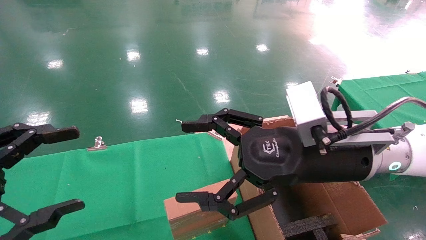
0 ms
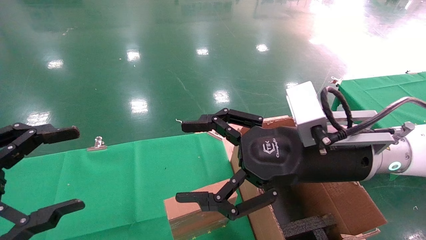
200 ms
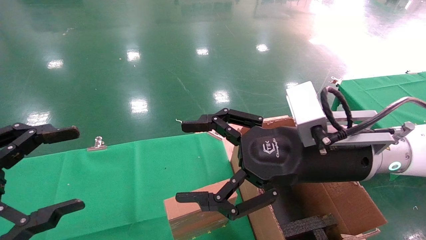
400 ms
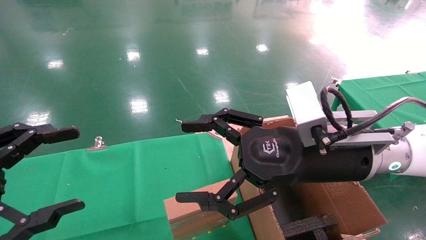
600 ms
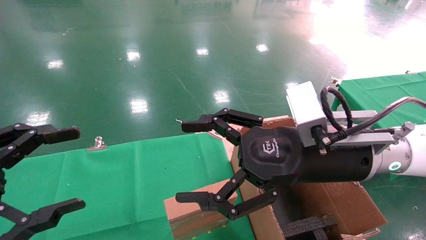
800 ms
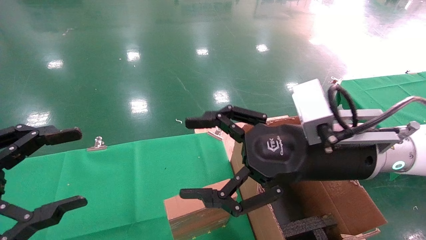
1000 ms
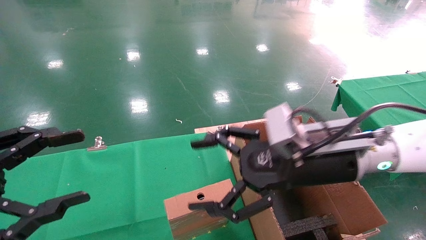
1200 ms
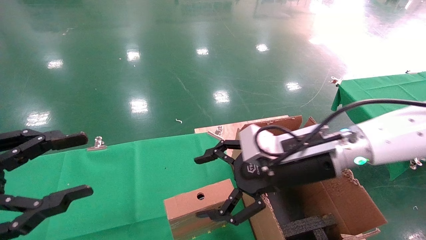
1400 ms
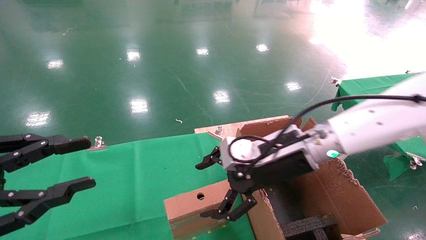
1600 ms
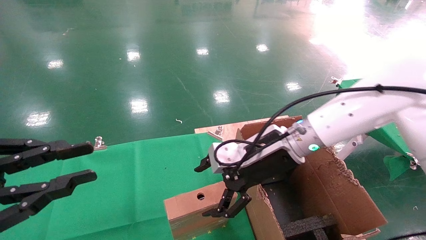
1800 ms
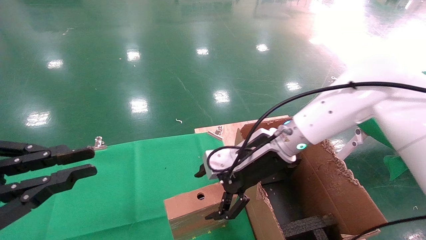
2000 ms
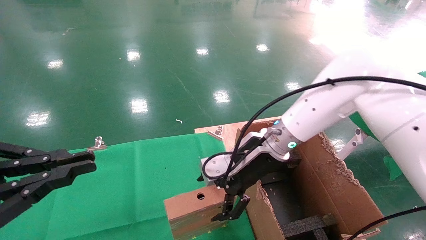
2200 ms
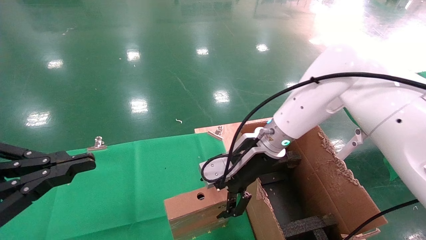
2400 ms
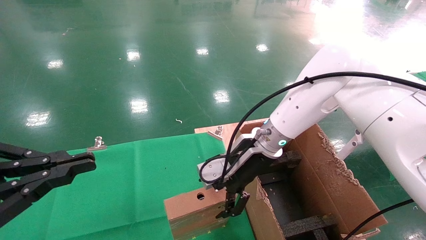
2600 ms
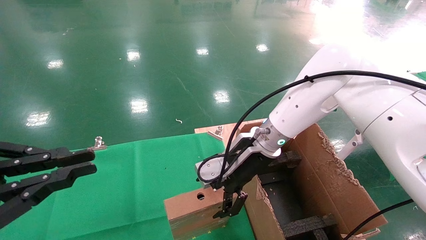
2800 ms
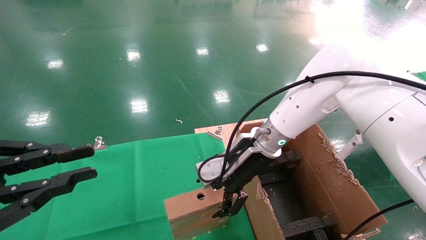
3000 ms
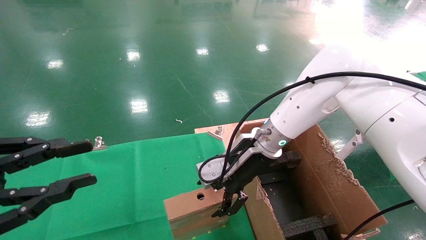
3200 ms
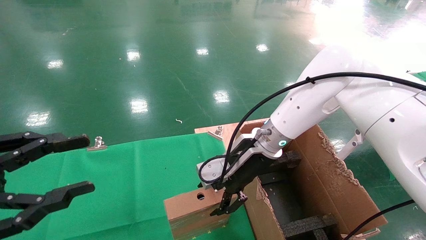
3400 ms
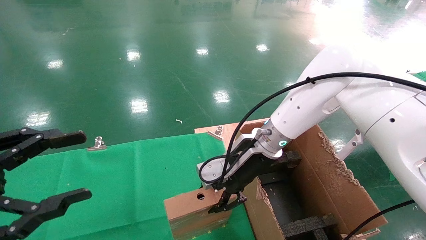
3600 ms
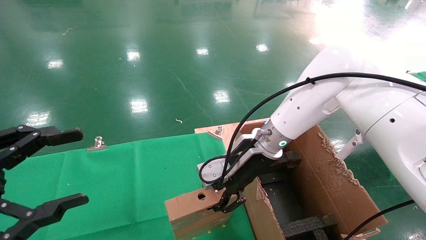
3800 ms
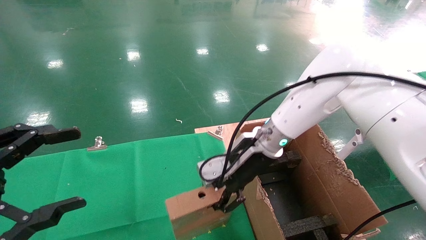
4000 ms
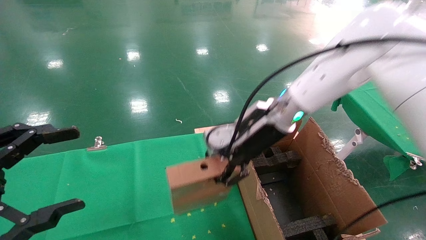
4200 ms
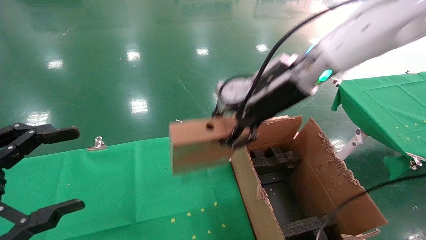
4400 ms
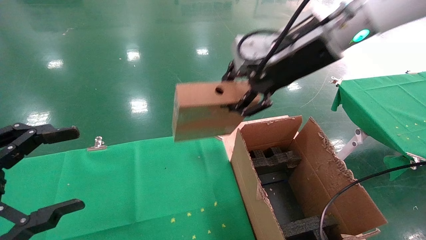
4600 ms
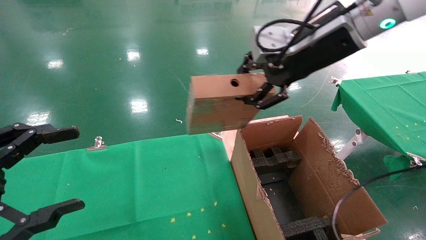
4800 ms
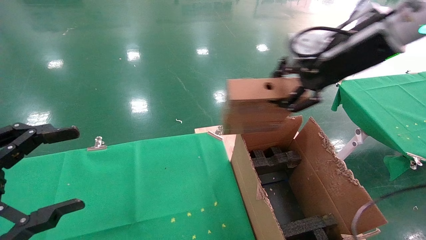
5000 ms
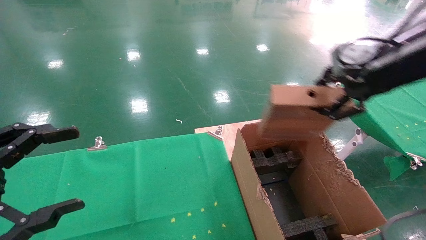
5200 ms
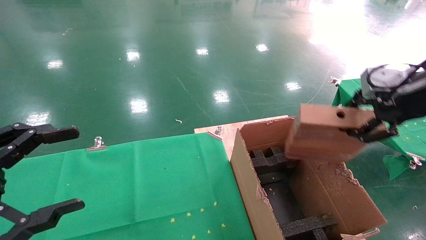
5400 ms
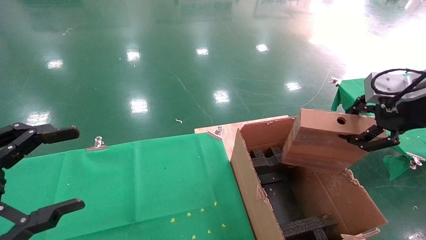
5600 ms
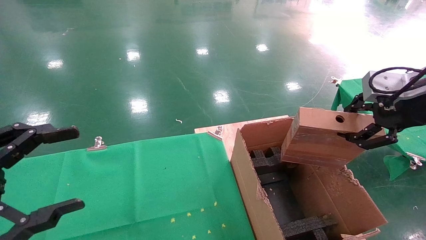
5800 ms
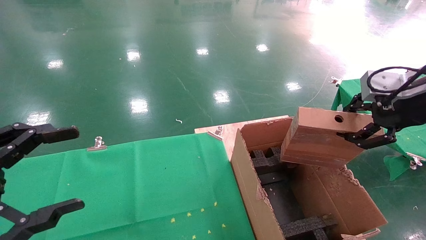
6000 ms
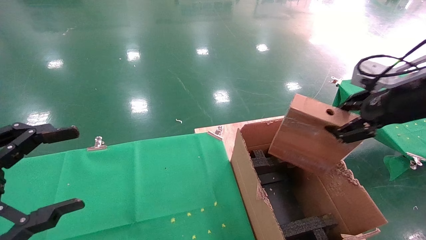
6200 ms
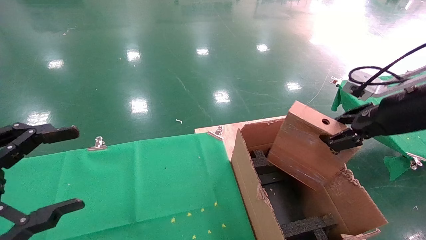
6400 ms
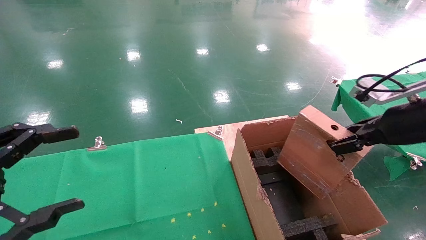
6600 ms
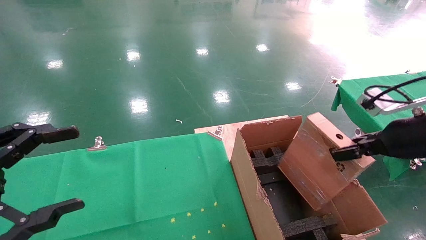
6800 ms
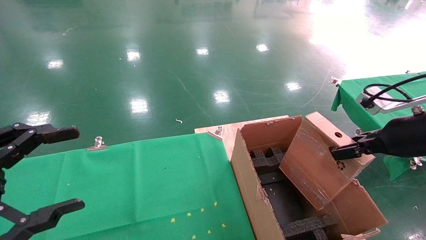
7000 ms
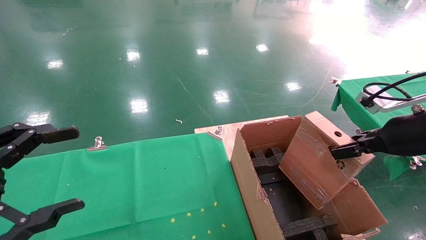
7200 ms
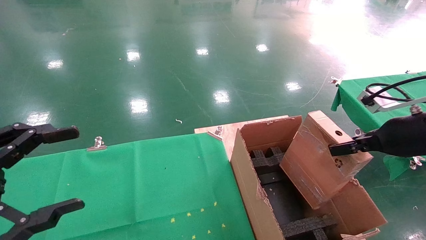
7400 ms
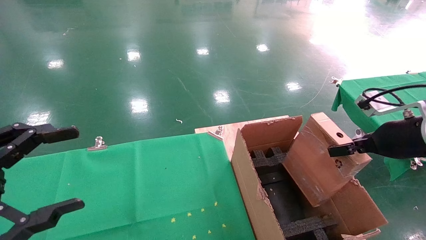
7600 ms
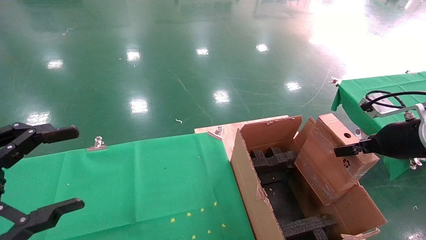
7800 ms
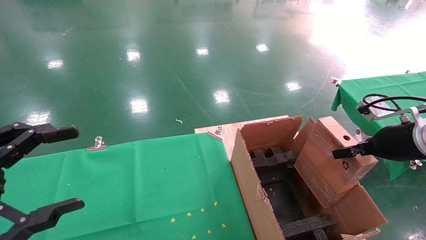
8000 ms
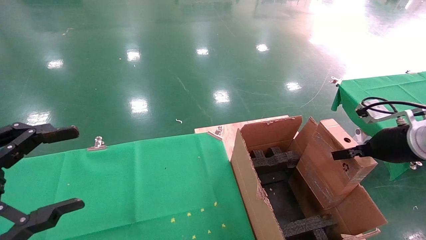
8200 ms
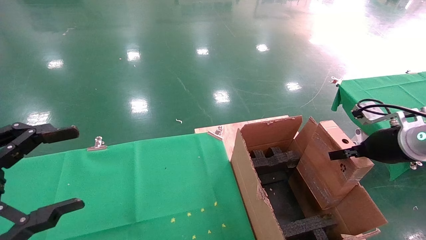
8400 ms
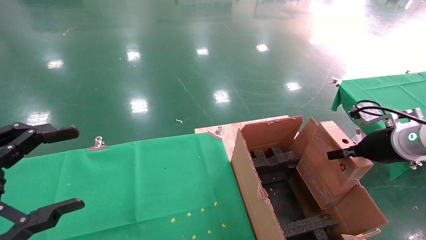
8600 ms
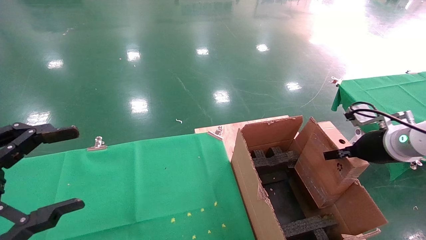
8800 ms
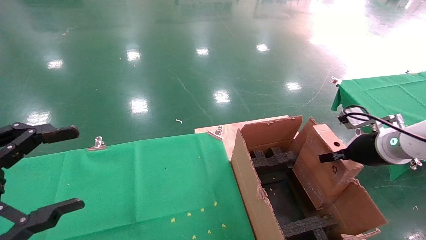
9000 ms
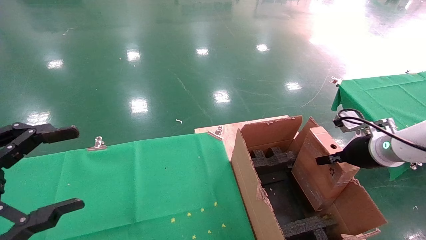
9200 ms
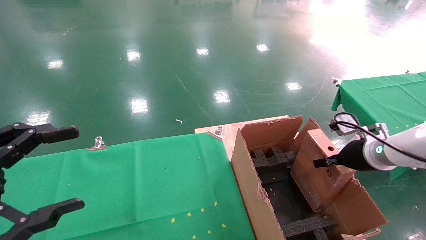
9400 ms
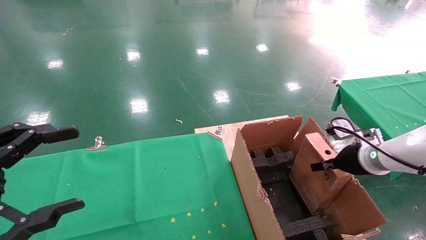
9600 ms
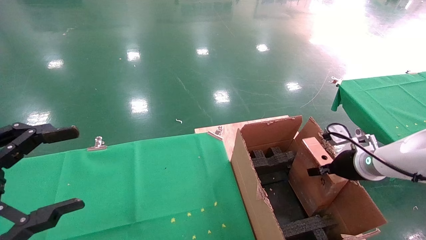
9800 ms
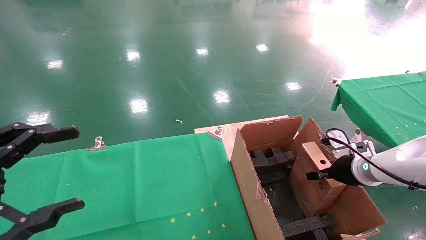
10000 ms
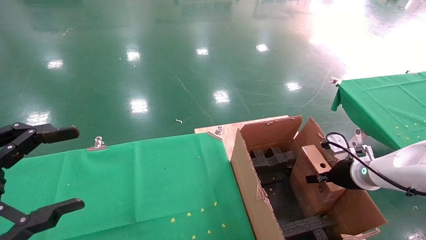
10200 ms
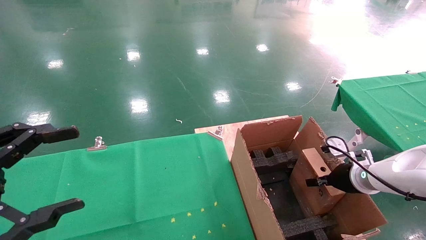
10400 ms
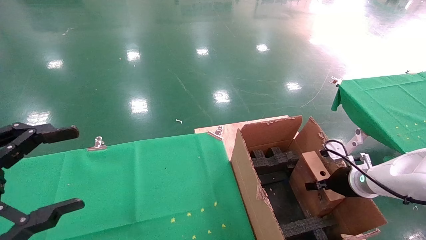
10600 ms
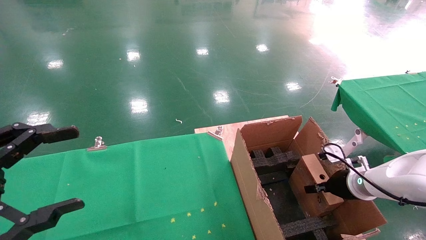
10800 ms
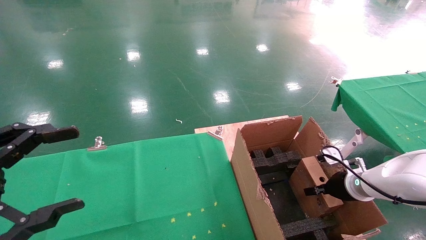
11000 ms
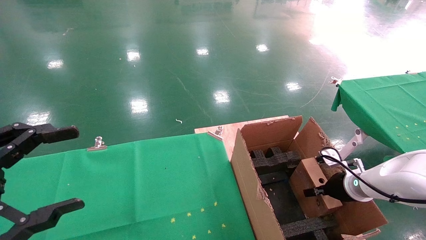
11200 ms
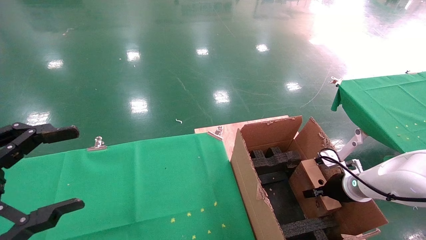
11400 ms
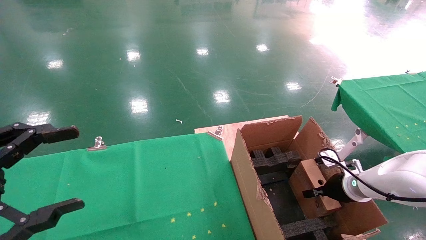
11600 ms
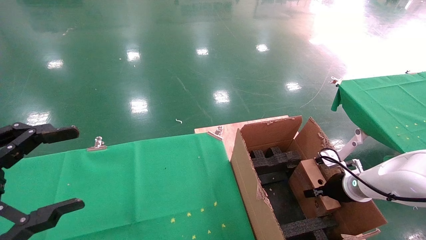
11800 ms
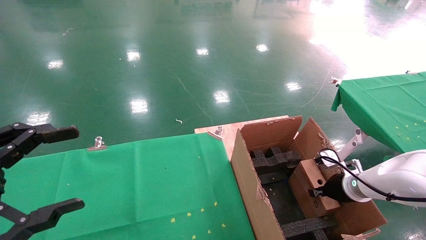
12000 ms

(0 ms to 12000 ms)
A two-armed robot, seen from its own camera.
Task of the whole recording: using a robotic arm to pick up a cardboard box and palace it the carton.
Step, 1200 ms - 3600 ms: Pick up the mouse and the power cord paper box.
0 ms - 1600 ms: The right gripper is displaced forward by approximately 10 cm. The left gripper closes.
1600 ms - 3000 ms: The right gripper moves forward, about 5 cm. The left gripper closes up.
3000 ms - 4400 ms: The left gripper opens its fingers; the right gripper heads upward, covering about 15 cm, and closes.
4400 ms - 6000 ms: The right gripper travels to the right and backward by approximately 25 cm.
6000 ms - 7600 ms: The right gripper goes some 10 cm downward.
7600 ms - 9000 ms: The right gripper goes about 10 cm downward and forward.
9000 ms - 10400 ms: The right gripper goes about 10 cm downward.
10400 ms - 12000 ms: The grippers make only small movements.

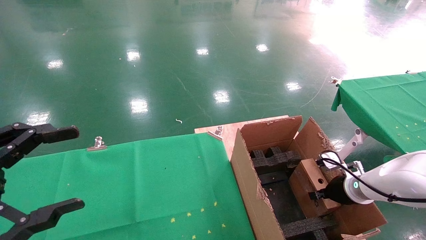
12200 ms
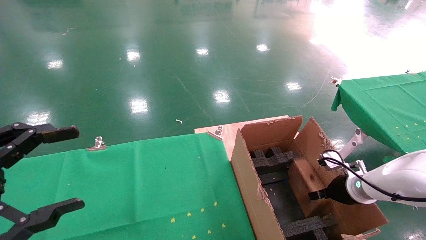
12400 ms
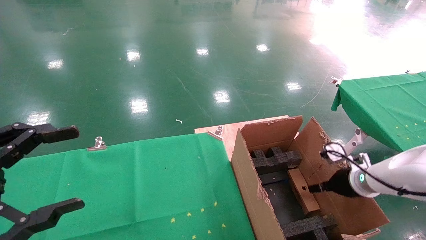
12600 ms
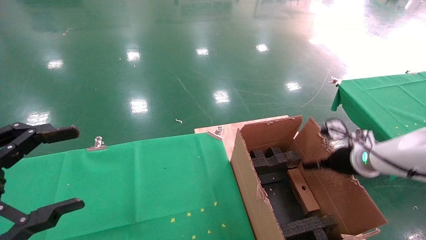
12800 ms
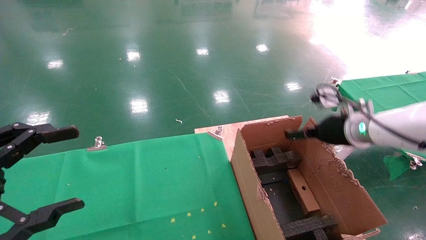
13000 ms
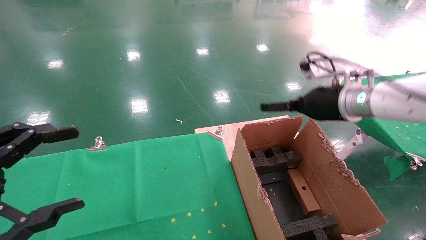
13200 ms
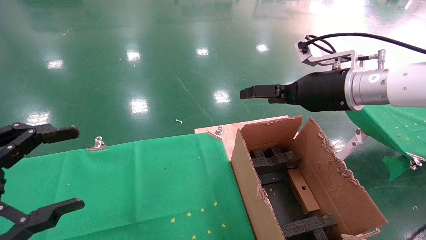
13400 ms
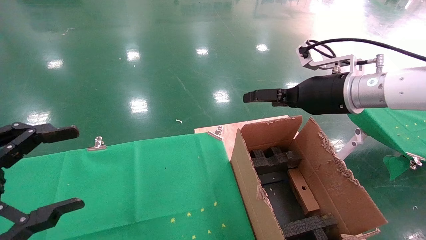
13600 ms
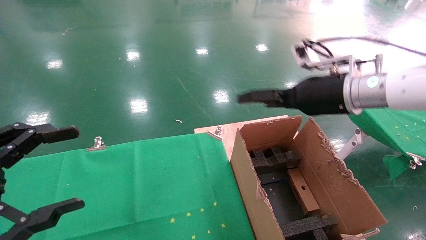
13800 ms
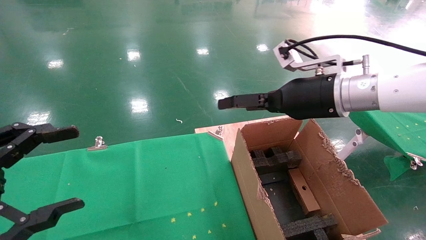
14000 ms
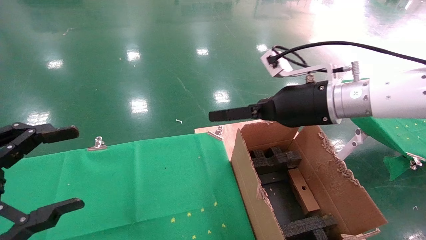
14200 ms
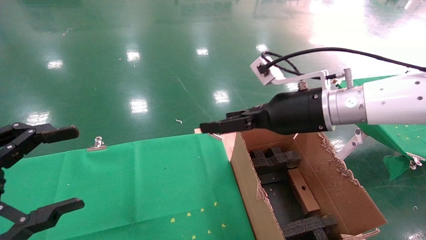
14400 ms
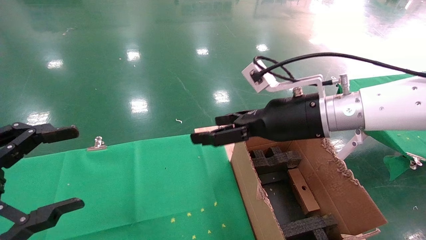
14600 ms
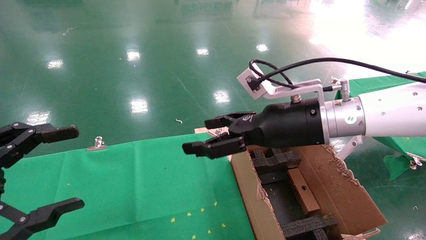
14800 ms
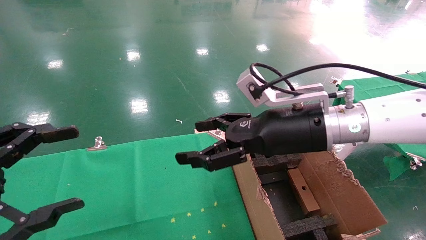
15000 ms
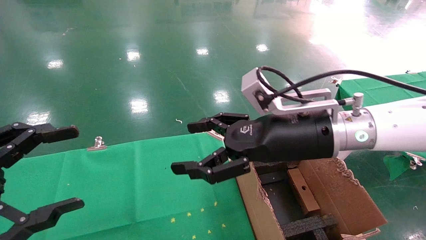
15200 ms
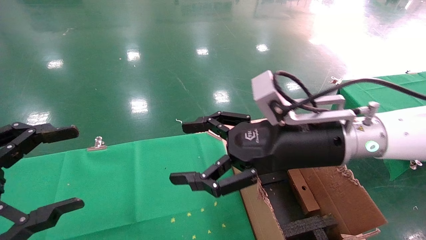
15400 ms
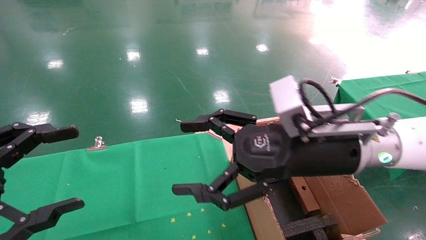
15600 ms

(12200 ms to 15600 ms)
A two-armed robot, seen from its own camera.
Task of the whole recording: using a robotic arm to pick up a cardboard box and palace it the carton.
12200 ms - 13800 ms: The right gripper heads upward and to the left, covering some 25 cm, and opens up.
13800 ms - 15600 ms: The right gripper goes about 10 cm backward and to the left.
